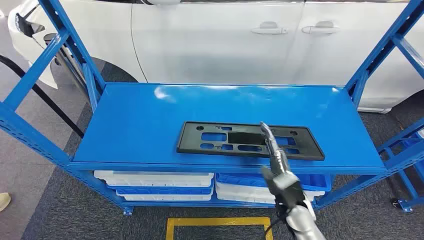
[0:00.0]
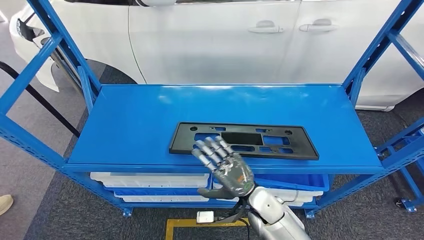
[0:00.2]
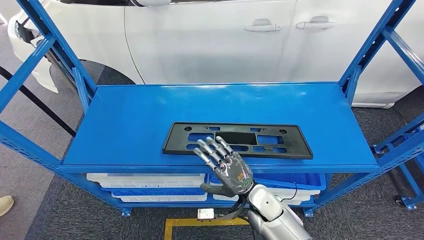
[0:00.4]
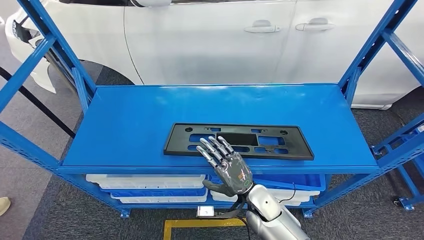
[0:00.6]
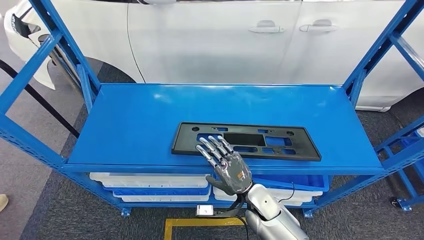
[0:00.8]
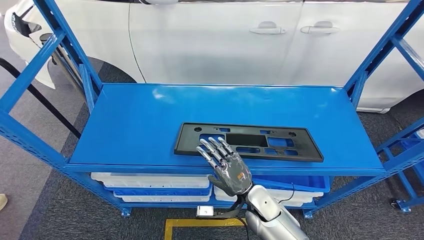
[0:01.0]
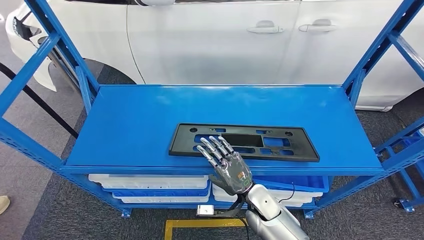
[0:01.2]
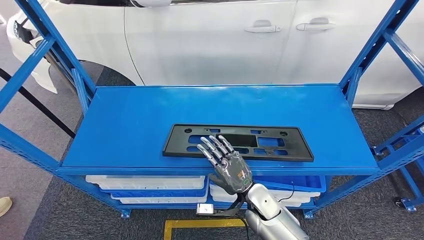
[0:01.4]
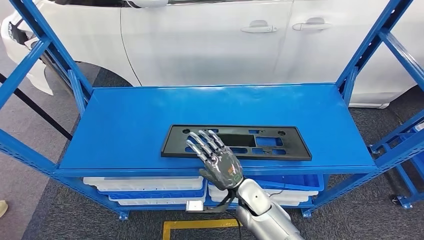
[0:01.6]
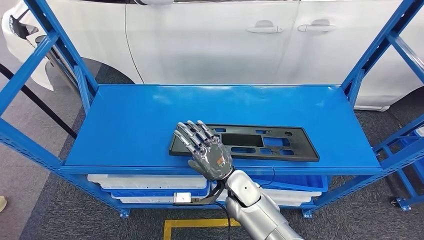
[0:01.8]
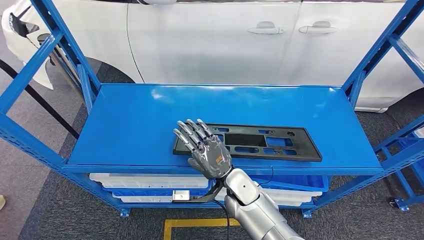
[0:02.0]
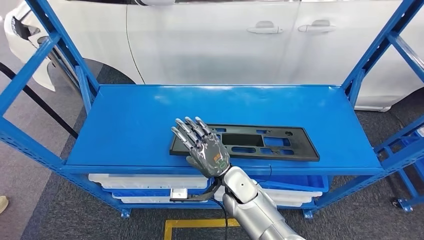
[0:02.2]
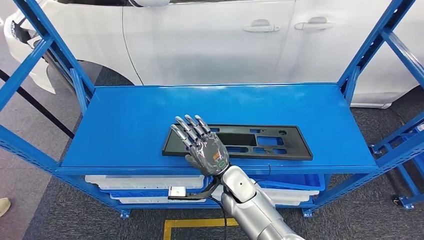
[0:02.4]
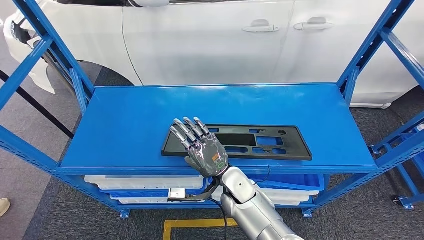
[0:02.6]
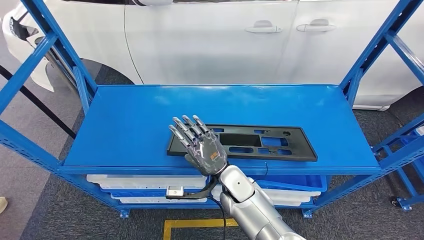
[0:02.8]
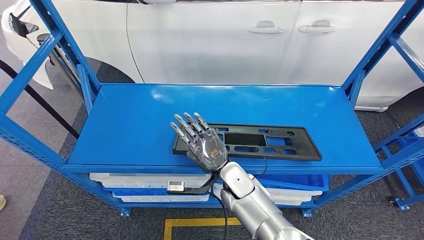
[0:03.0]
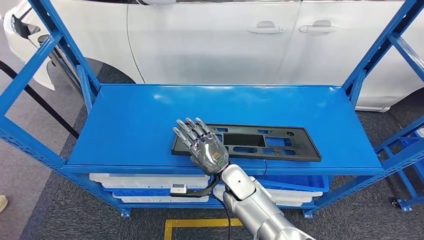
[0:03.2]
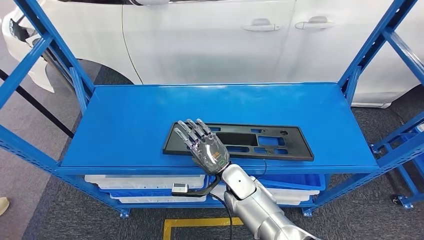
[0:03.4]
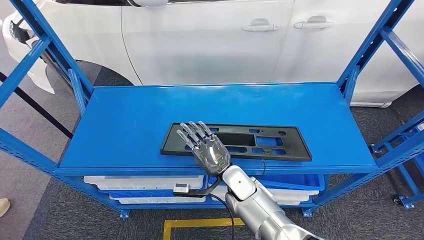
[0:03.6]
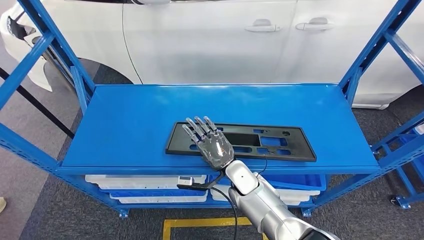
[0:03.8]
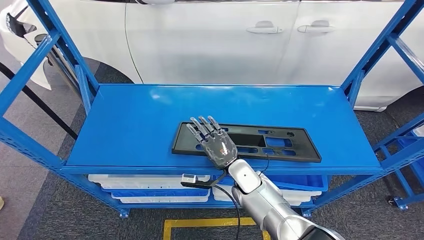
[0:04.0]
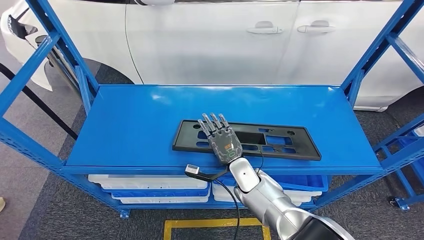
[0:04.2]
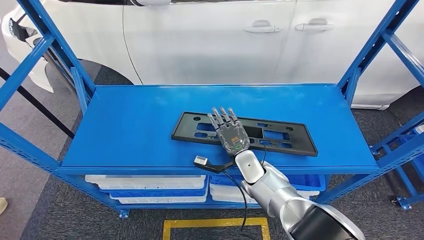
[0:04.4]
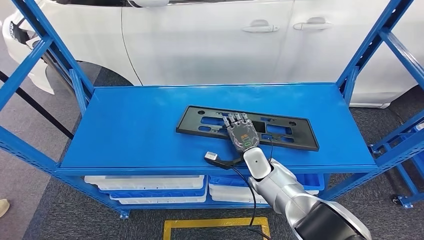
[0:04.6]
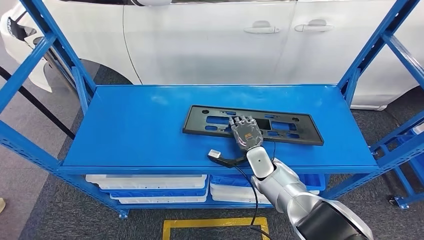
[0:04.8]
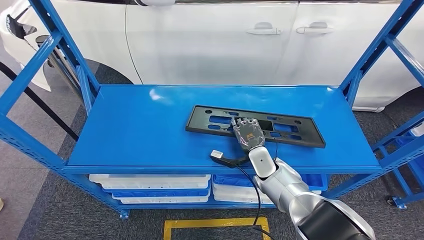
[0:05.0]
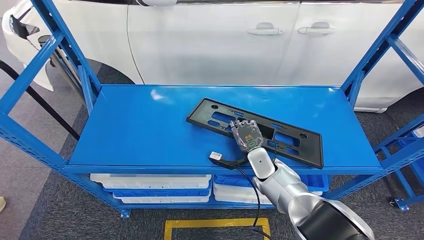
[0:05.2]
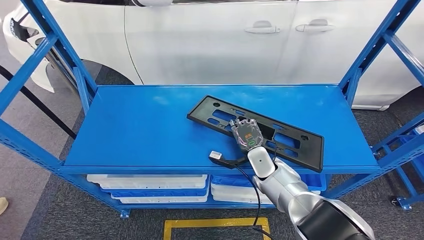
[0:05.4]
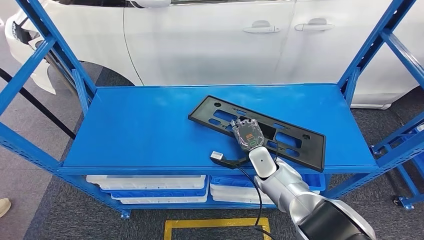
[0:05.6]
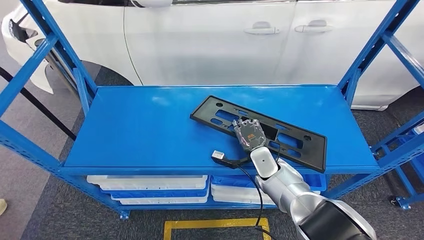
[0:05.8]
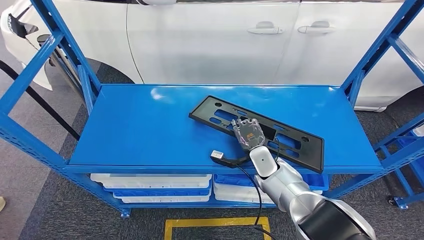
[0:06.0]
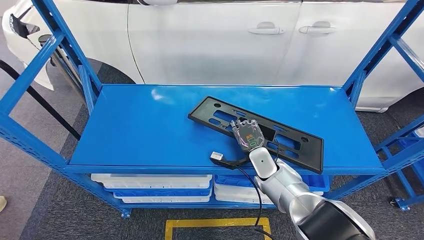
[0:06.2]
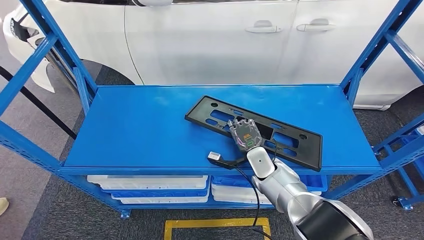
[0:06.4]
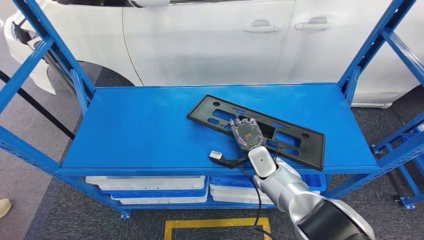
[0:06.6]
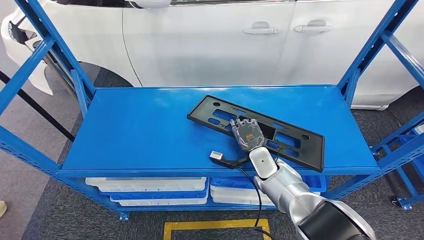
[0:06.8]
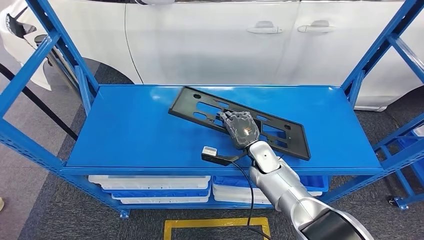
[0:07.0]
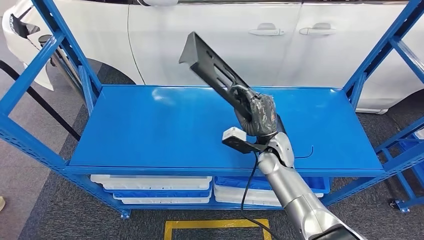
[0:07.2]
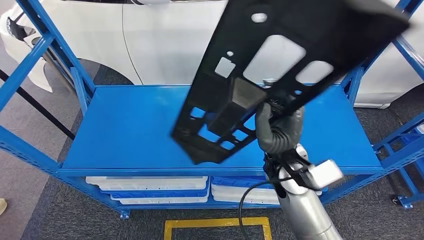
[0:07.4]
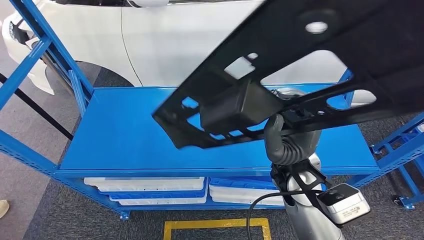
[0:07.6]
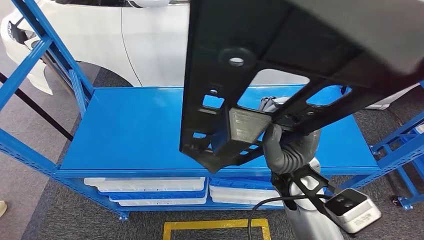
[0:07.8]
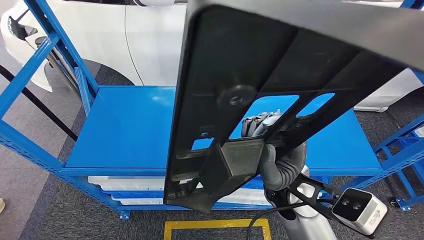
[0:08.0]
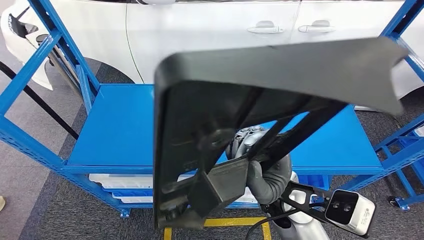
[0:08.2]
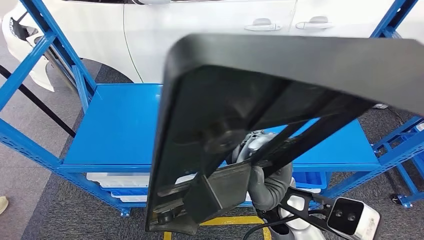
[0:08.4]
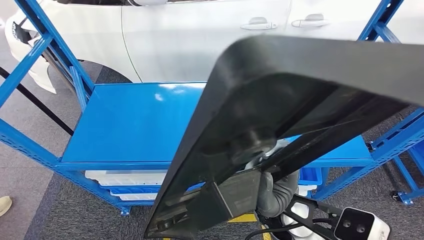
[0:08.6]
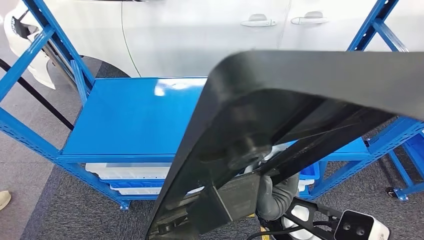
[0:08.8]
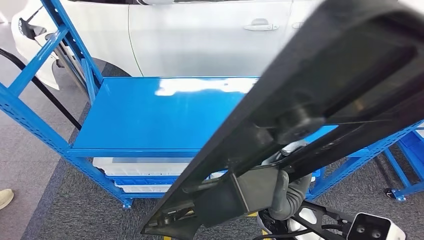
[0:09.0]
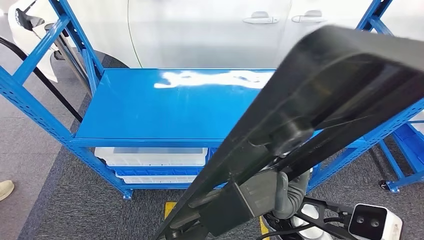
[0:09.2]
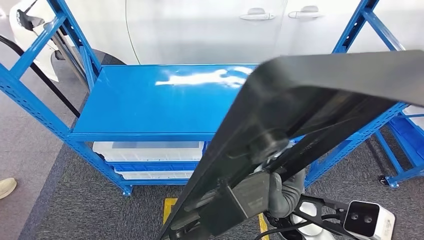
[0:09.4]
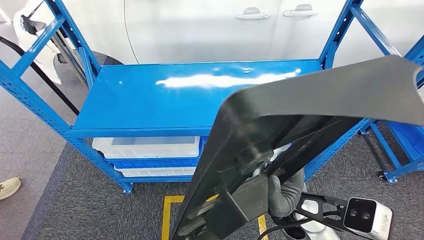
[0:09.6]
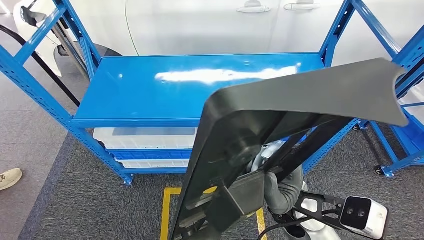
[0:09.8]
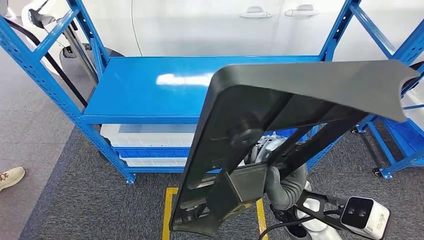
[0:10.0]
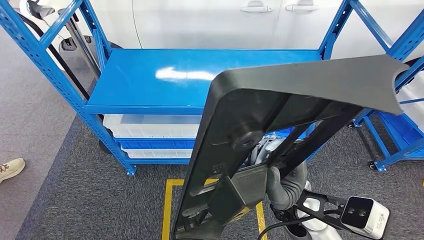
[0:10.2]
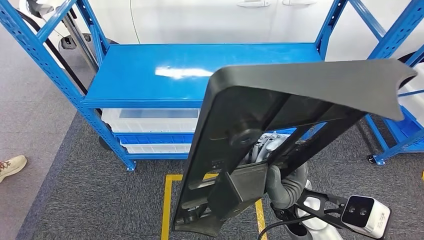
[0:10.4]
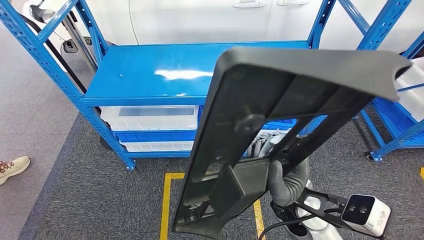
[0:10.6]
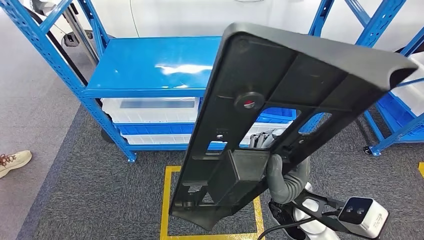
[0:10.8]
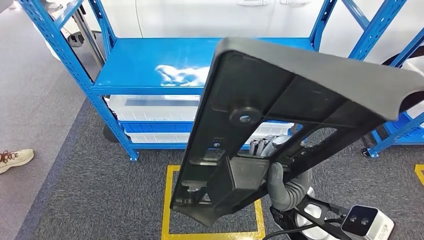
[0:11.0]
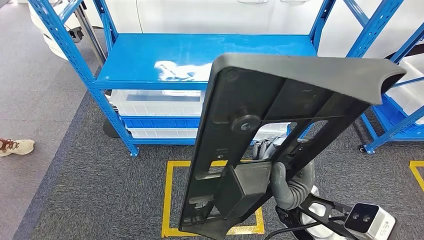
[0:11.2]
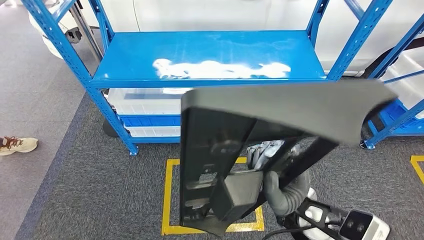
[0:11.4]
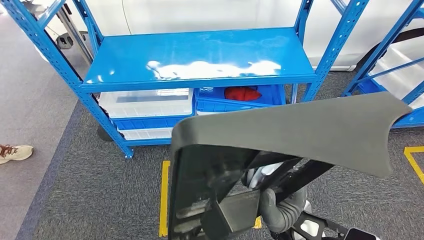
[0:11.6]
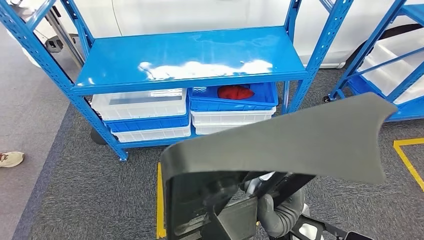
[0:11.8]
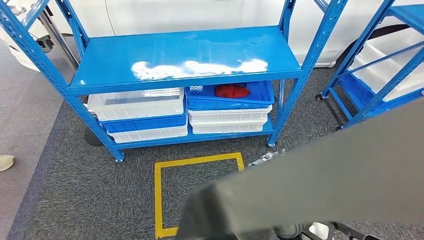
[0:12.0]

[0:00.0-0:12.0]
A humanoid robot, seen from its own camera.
Step, 0:00.0 to 0:07.4: Pick up the large material from the shelf.

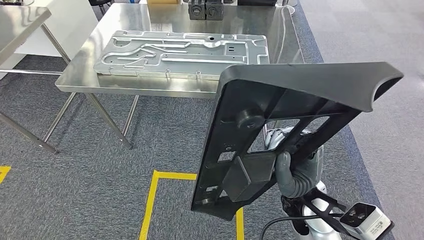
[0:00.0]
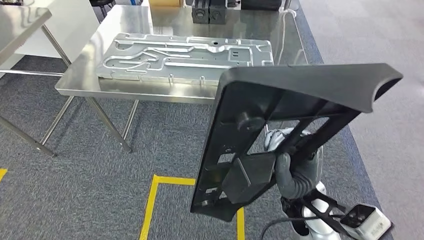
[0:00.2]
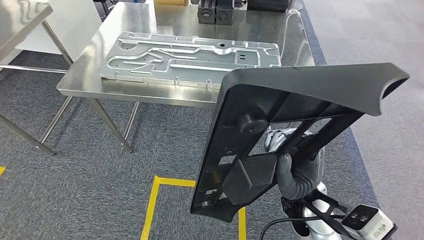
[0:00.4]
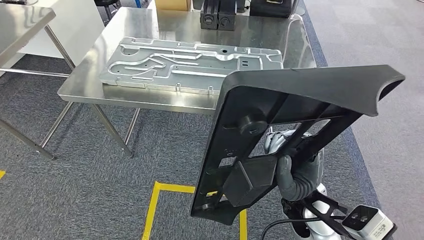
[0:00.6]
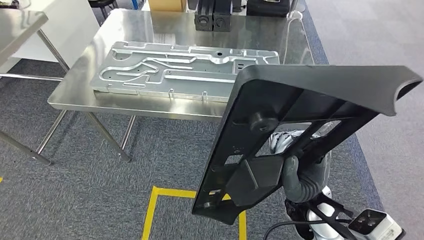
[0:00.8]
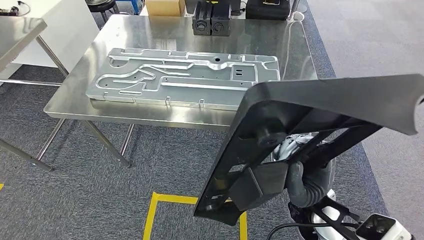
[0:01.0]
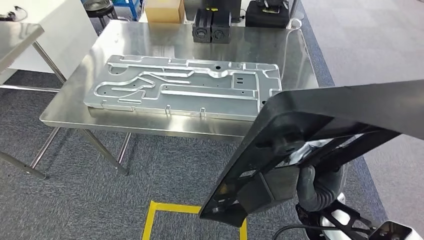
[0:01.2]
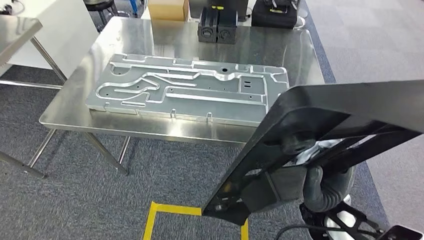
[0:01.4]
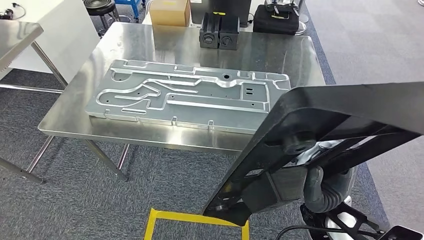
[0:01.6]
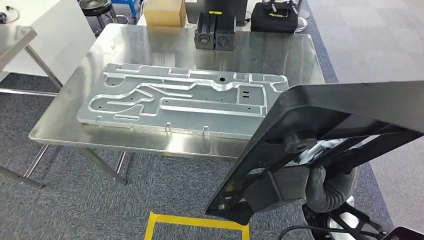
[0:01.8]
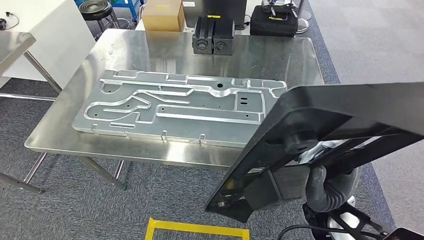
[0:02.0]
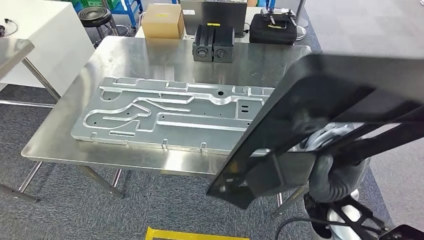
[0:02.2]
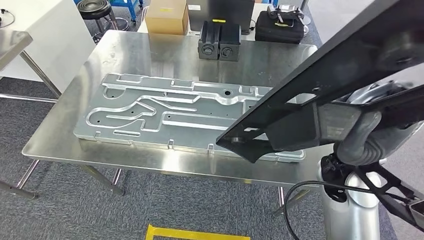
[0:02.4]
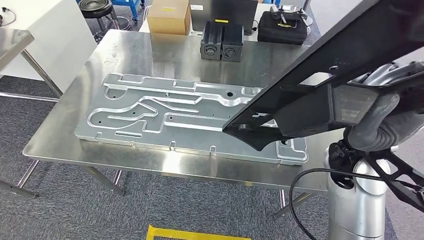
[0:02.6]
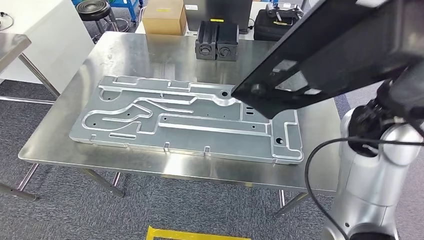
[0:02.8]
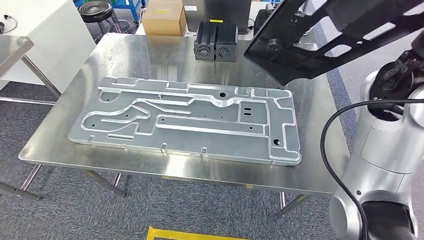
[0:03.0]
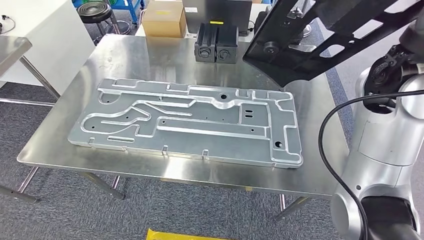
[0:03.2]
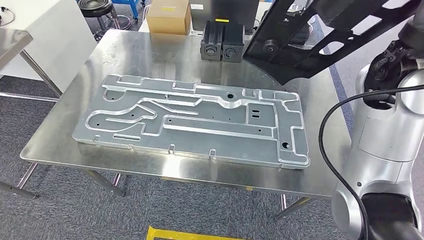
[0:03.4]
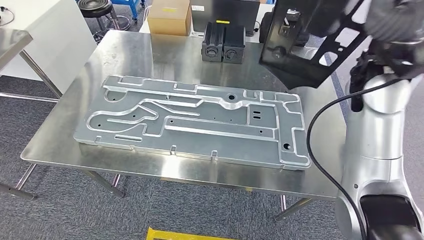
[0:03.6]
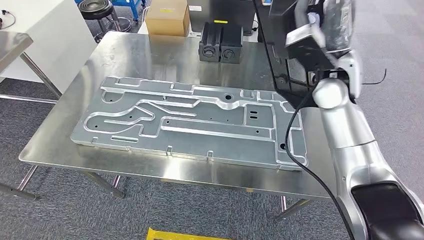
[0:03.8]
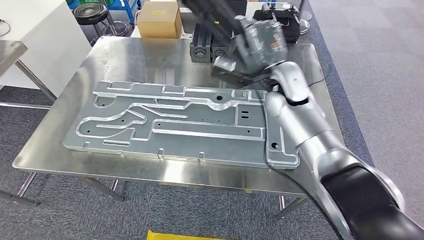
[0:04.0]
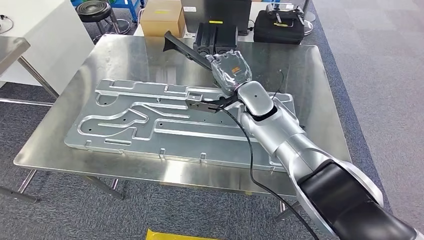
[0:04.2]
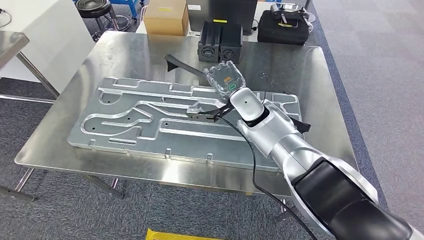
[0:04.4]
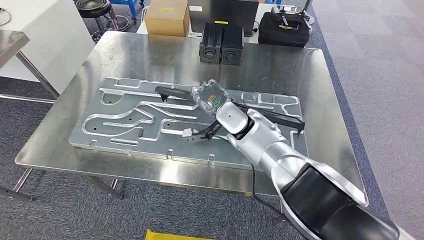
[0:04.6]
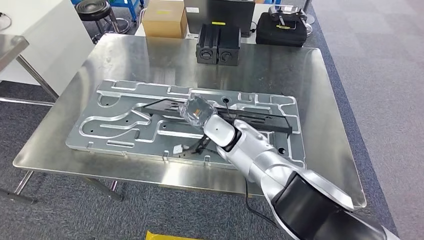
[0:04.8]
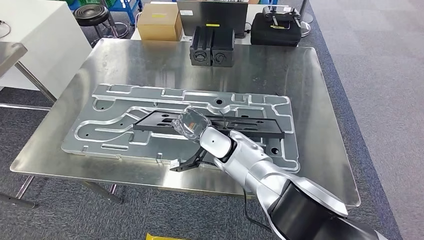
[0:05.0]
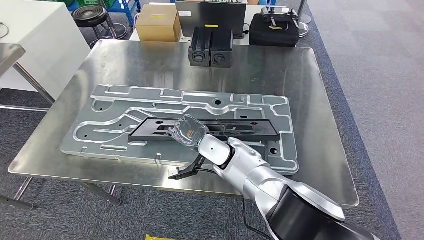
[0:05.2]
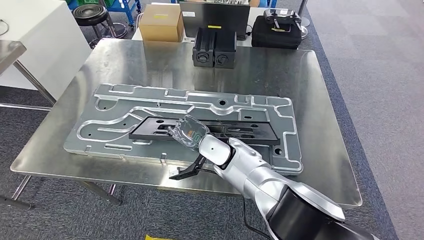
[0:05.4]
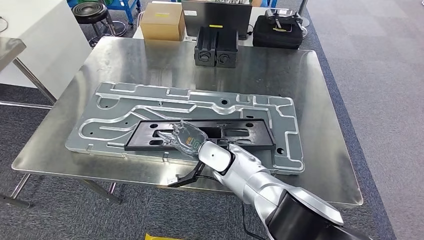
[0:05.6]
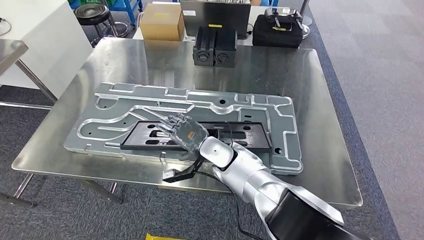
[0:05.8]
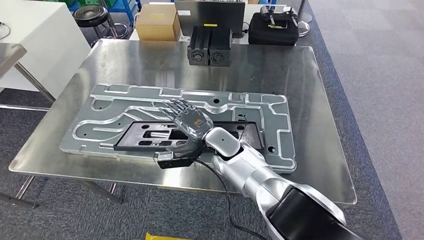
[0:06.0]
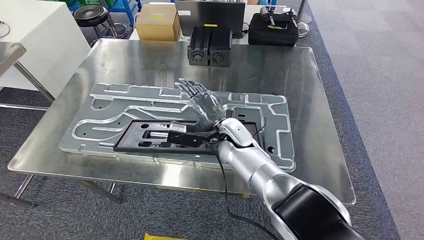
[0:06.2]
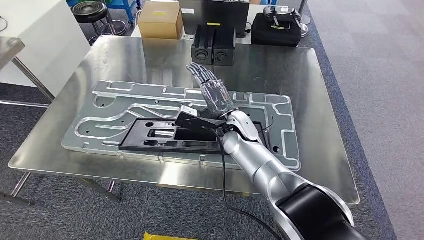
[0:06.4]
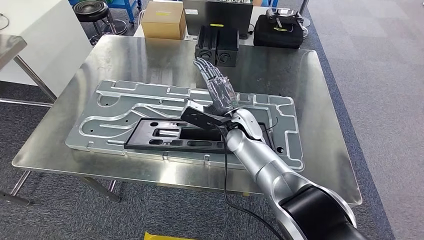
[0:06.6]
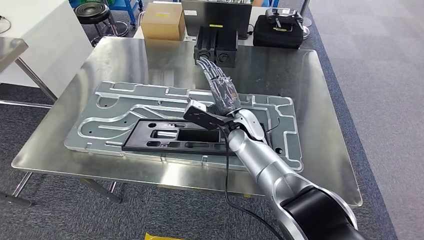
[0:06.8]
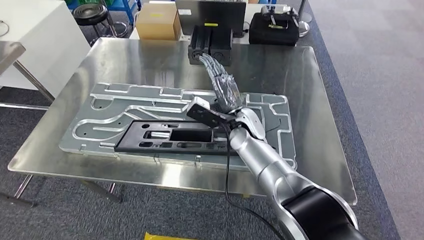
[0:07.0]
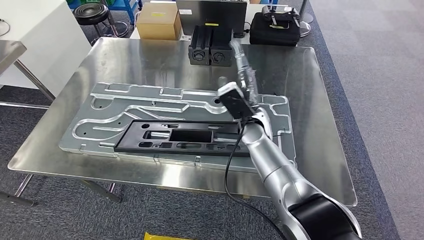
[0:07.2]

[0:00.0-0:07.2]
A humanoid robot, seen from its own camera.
Step, 0:00.0 to 0:03.6: Move the large material to the front of the workbench.
